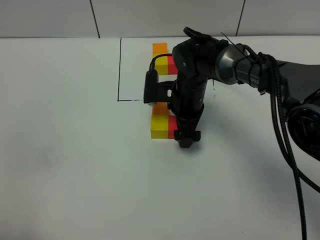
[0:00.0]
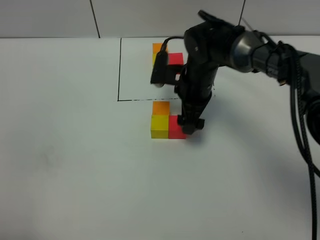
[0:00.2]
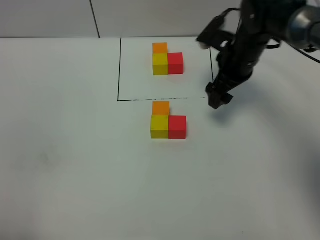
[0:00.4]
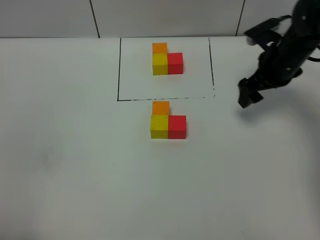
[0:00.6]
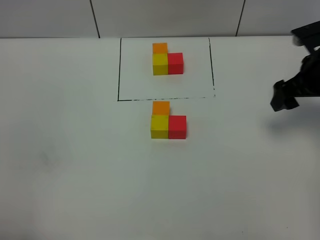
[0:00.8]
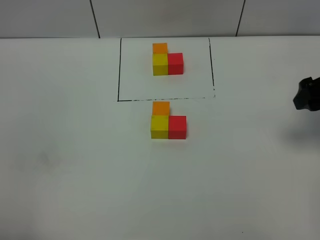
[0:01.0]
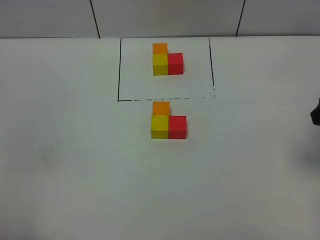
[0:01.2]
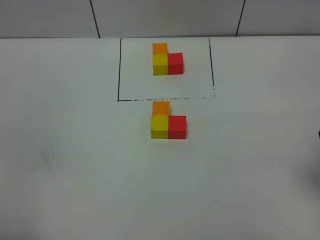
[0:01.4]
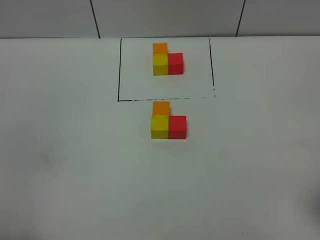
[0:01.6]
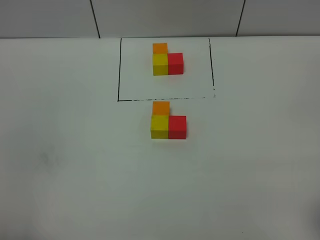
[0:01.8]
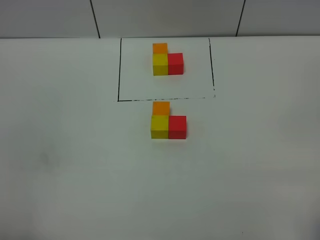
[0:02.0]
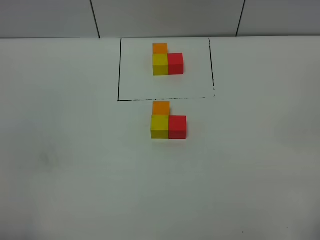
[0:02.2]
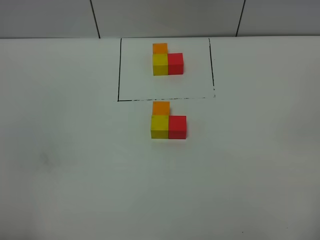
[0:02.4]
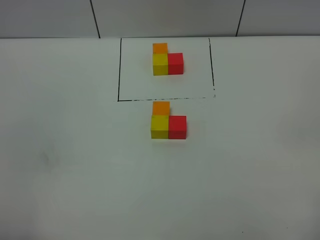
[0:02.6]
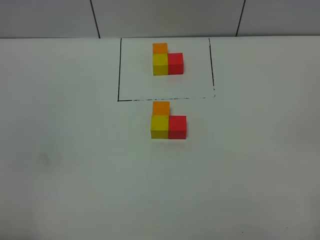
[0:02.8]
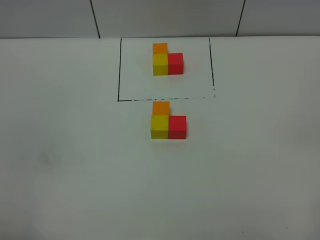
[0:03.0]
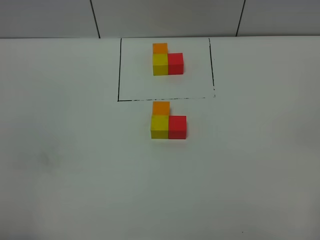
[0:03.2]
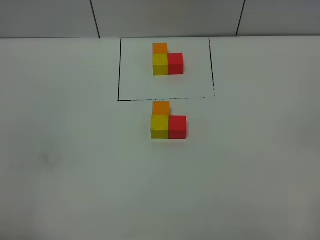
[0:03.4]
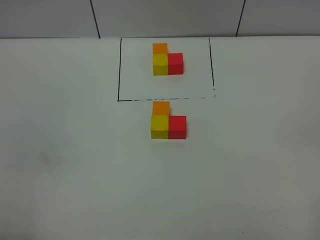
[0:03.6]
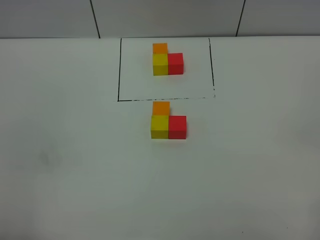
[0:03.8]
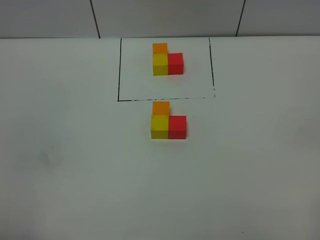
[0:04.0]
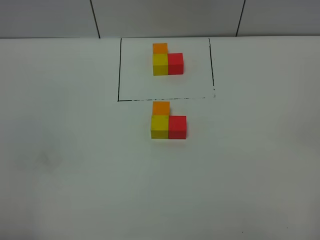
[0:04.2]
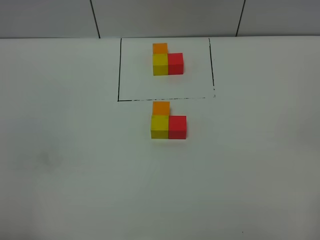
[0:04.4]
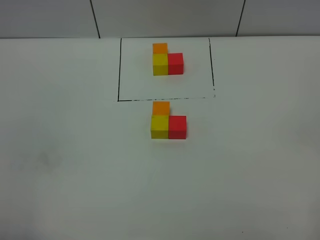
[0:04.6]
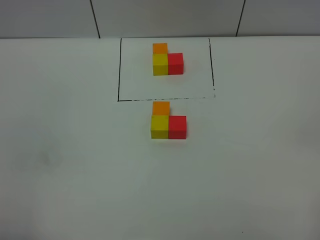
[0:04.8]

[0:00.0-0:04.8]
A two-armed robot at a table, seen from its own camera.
Task of the whole recording: According to the building block template in front, assemble the scattered blocks together.
0:00.0 to 0:01.6: The right gripper heads backward, to the right and upward, covering approximately 40 cm.
0:03.2 to 0:04.8: Neither gripper changes place.
